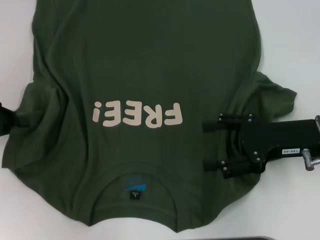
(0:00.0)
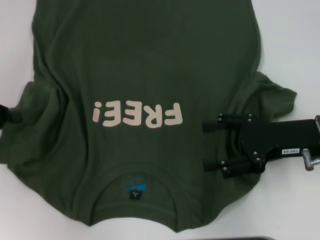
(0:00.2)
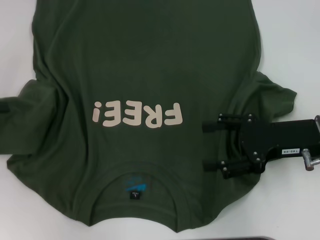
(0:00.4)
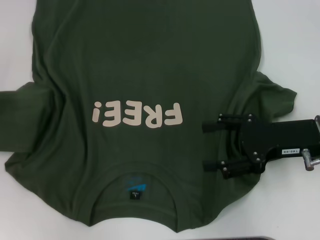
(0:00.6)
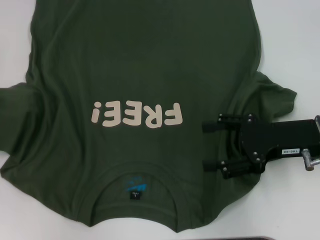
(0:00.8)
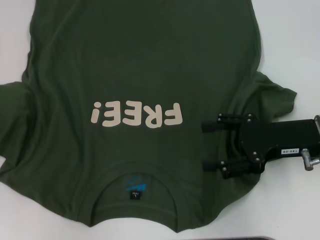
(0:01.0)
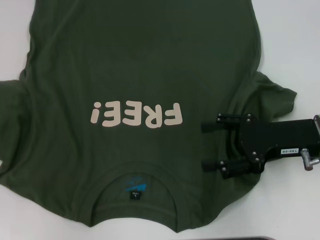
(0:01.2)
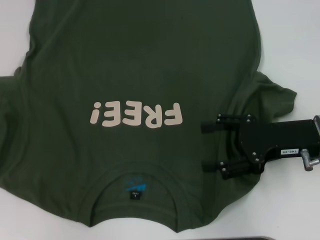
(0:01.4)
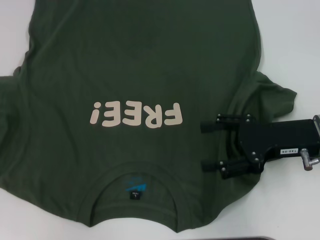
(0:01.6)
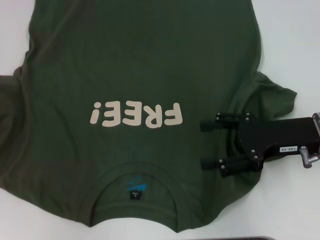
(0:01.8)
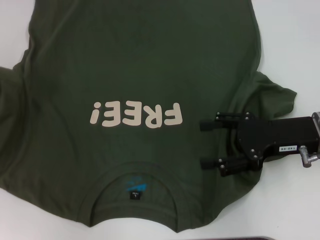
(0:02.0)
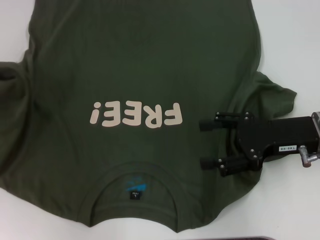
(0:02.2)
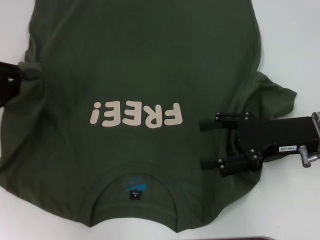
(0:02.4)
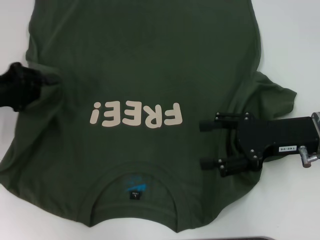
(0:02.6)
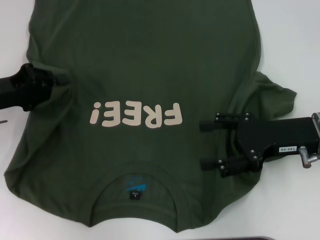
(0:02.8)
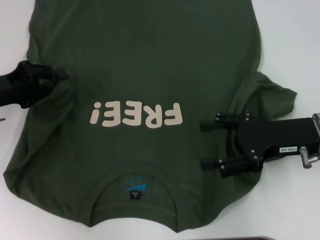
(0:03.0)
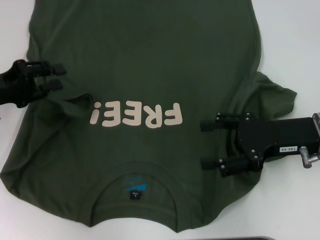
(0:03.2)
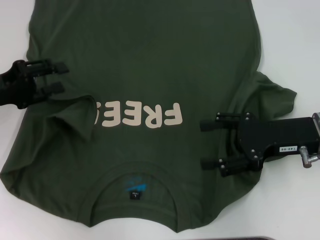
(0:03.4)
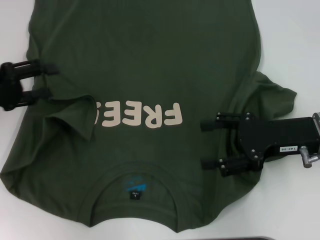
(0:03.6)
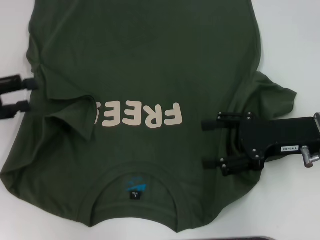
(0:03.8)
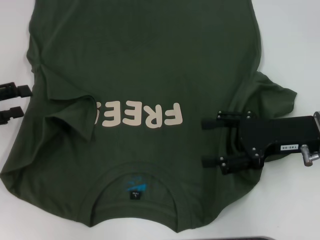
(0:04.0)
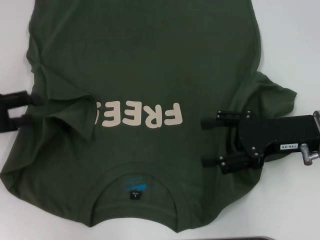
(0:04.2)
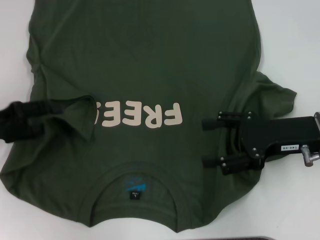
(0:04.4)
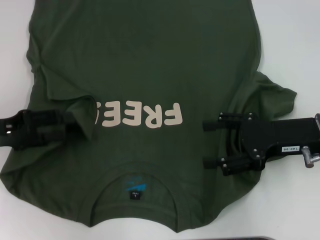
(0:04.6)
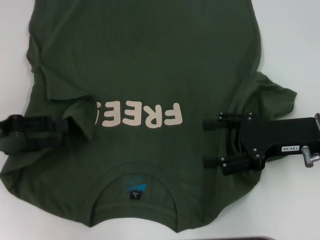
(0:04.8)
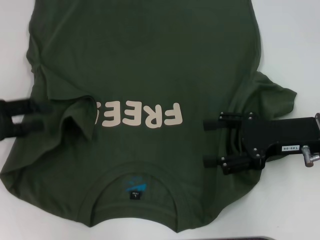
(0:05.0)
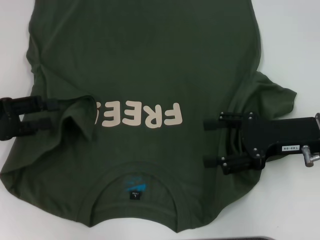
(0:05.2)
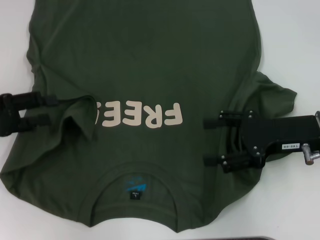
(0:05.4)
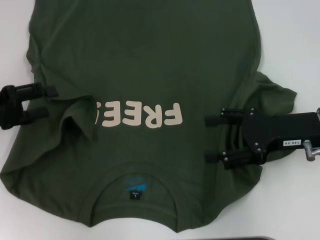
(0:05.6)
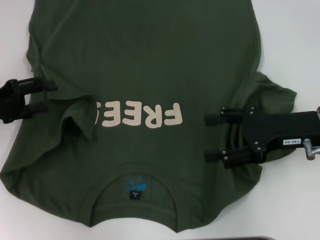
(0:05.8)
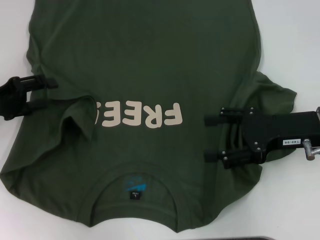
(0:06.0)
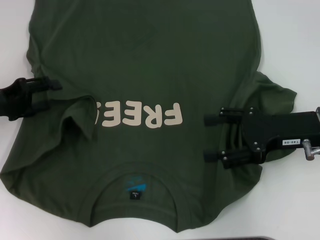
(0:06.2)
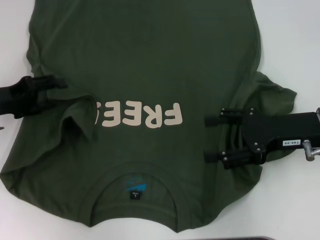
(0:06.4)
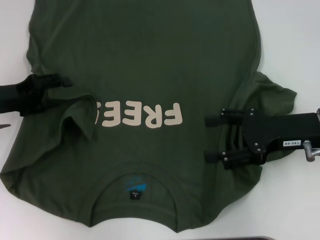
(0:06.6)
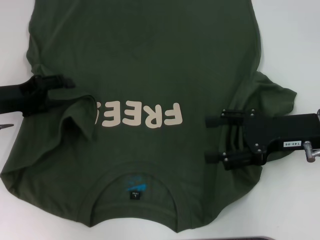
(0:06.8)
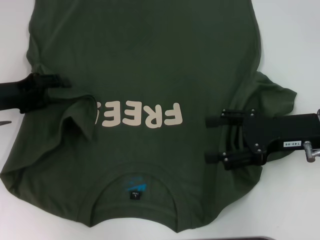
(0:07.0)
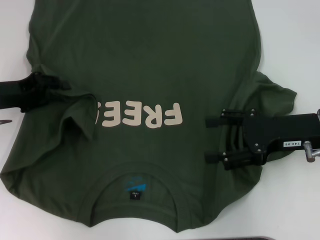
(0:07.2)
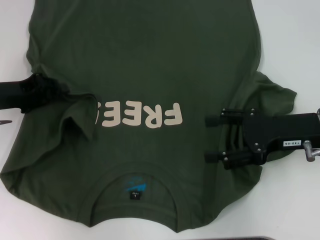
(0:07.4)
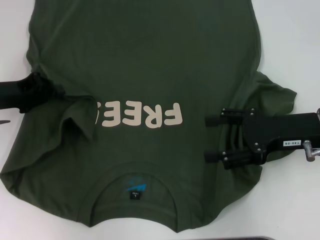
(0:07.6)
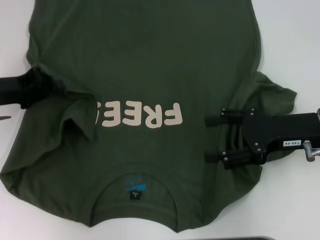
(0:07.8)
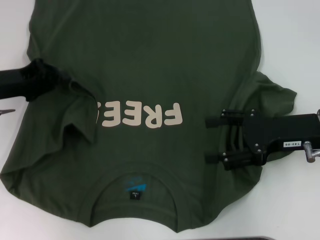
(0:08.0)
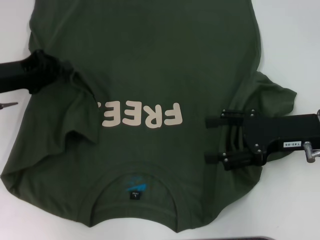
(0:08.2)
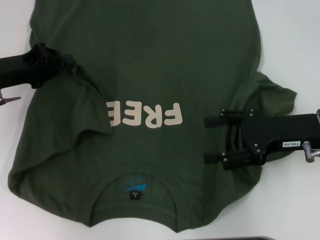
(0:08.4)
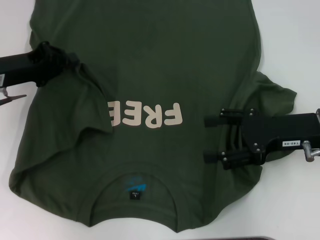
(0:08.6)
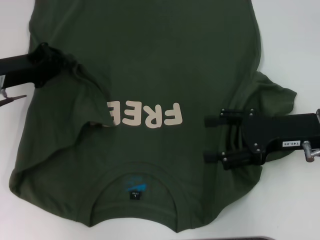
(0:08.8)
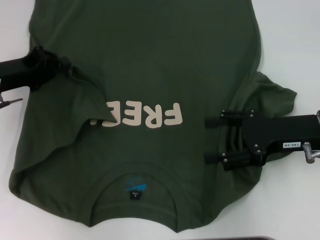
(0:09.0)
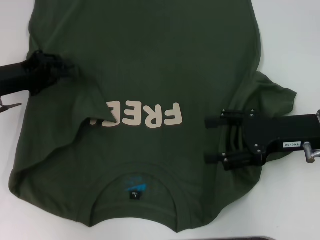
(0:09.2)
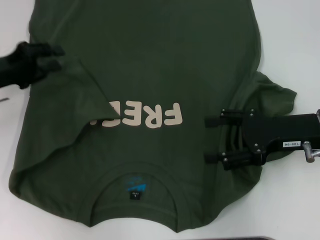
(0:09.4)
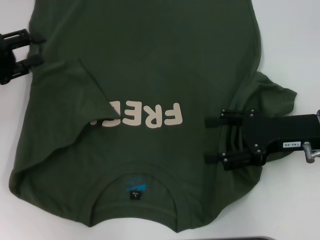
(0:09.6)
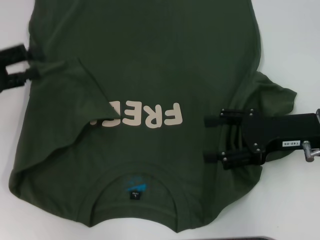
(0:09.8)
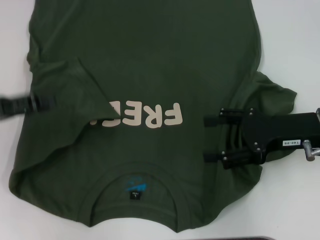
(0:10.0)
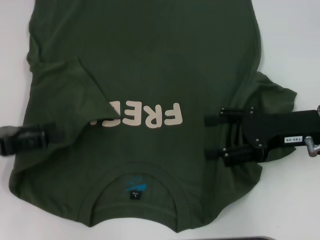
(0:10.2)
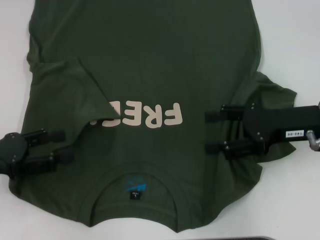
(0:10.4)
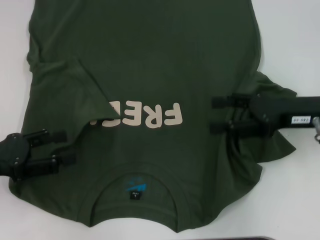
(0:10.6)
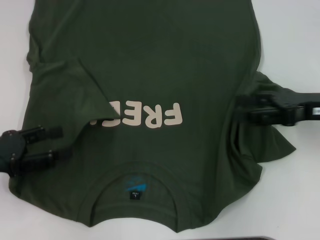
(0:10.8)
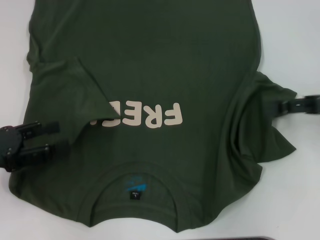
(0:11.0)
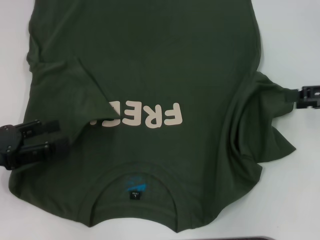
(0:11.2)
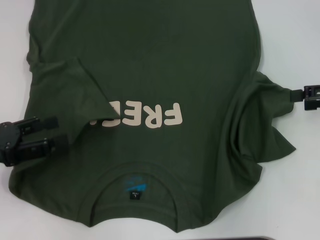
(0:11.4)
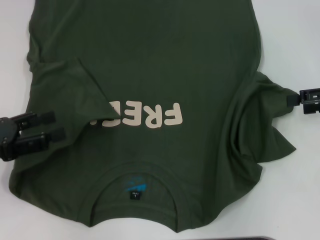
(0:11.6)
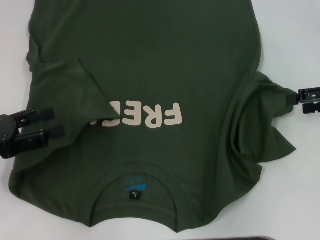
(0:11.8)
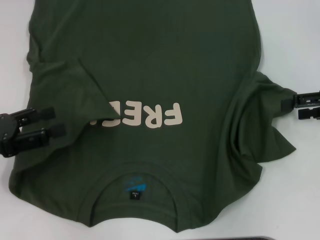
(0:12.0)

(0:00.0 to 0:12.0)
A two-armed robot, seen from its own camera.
Step, 0:00.0 - 0:05.2: Fold the bottom left sleeve with your left hand.
0:00.0 - 0:01.6: The left gripper moves to the left, about 5 cm.
0:01.6 - 0:03.0: The left gripper shifts approximately 10 cm to the right.
0:03.0 - 0:04.4: The left gripper opens its fingers.
0:04.4 - 0:06.0: The grippers stay close to where they were, moving slightly.
0:06.0 - 0:07.6: The left gripper closes.
0:07.6 - 0:09.0: The grippers move only a little.
0:09.0 - 0:10.4: The left gripper heads backward, covering roughly 10 cm, and opens.
0:10.4 - 0:12.0: The right gripper goes about 10 cm to the right.

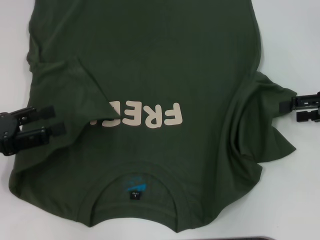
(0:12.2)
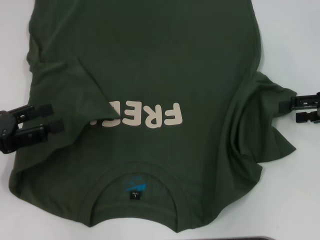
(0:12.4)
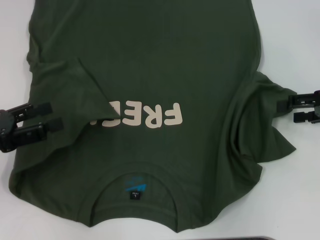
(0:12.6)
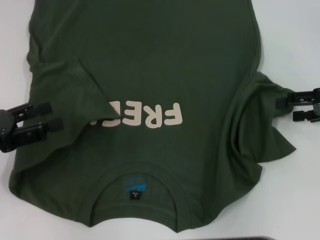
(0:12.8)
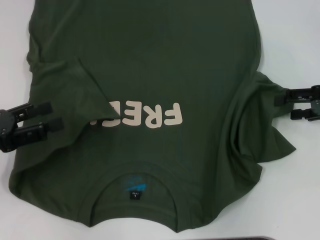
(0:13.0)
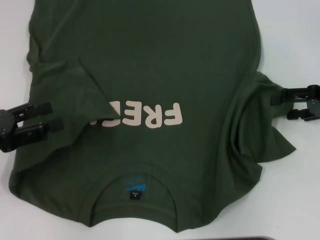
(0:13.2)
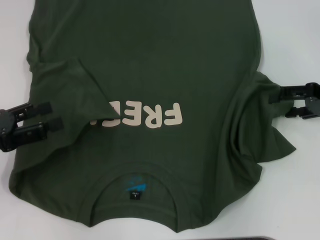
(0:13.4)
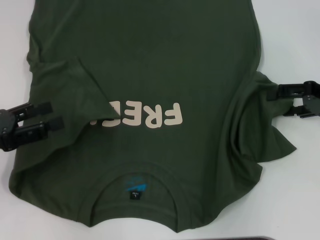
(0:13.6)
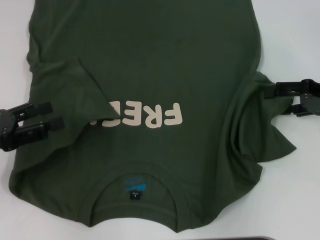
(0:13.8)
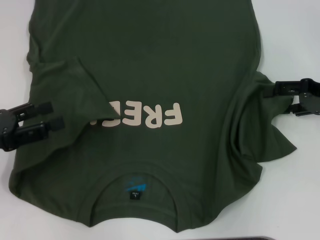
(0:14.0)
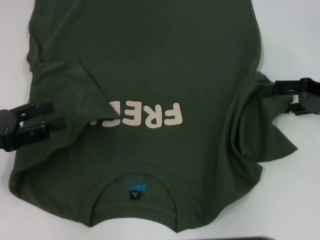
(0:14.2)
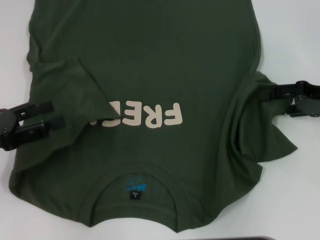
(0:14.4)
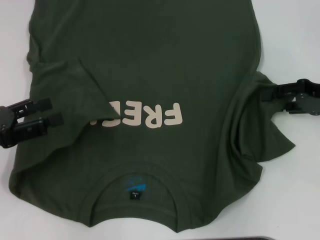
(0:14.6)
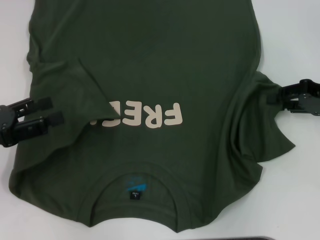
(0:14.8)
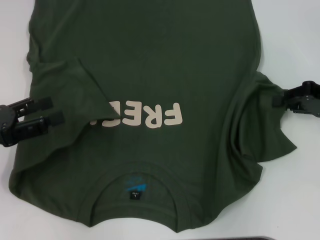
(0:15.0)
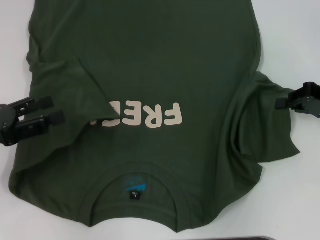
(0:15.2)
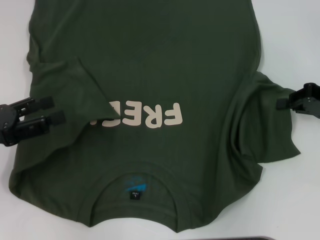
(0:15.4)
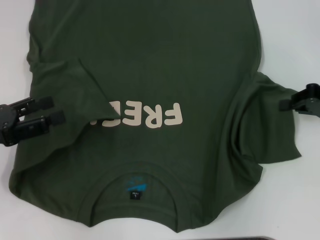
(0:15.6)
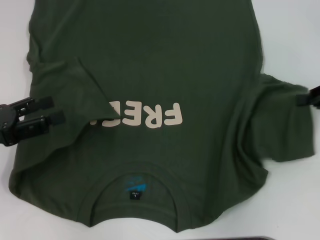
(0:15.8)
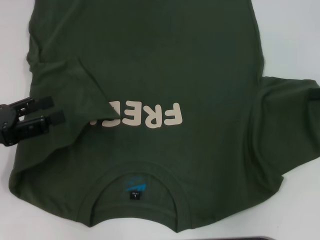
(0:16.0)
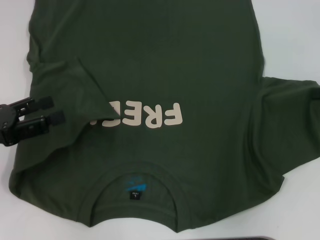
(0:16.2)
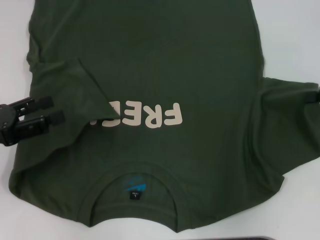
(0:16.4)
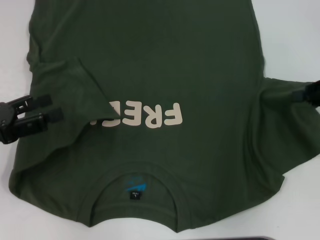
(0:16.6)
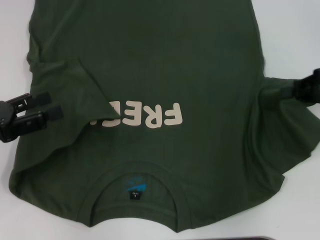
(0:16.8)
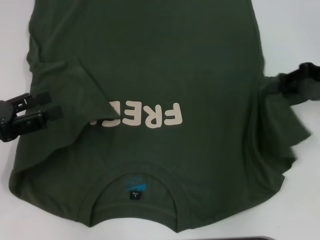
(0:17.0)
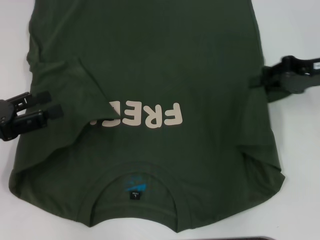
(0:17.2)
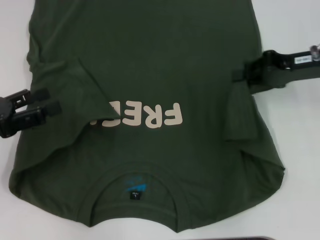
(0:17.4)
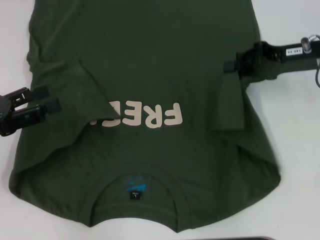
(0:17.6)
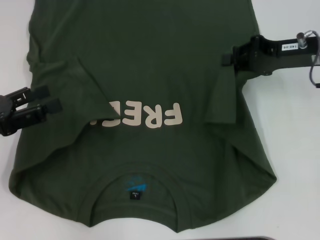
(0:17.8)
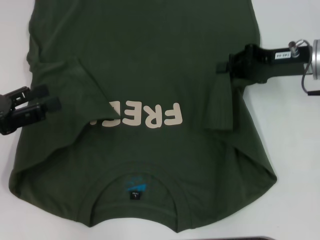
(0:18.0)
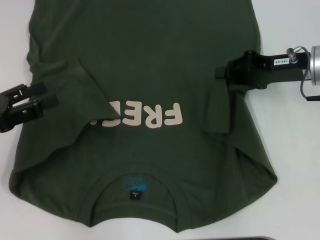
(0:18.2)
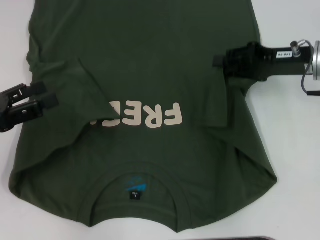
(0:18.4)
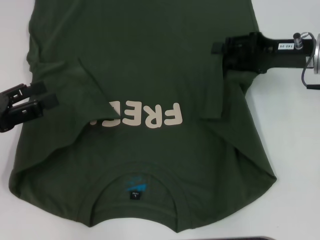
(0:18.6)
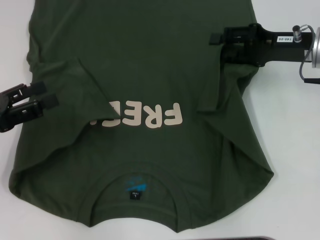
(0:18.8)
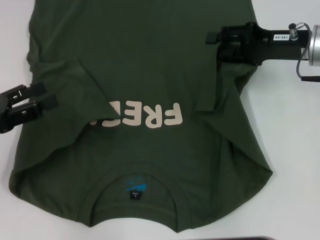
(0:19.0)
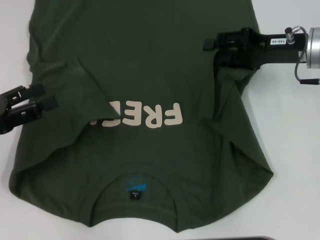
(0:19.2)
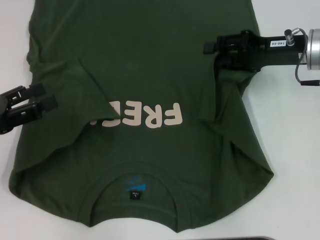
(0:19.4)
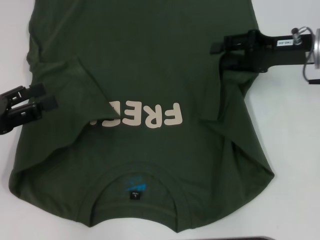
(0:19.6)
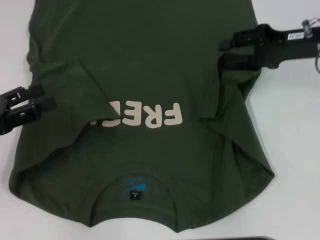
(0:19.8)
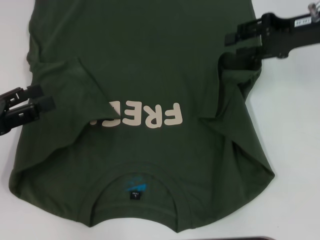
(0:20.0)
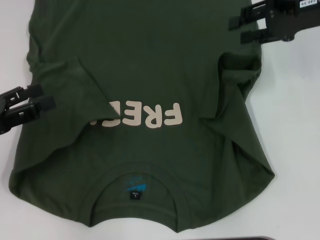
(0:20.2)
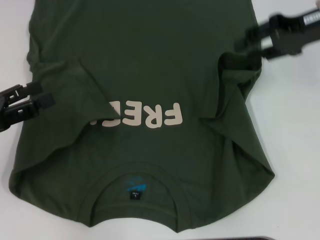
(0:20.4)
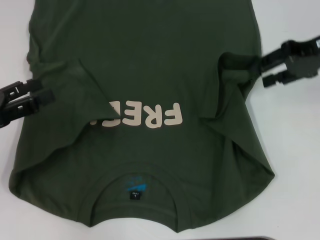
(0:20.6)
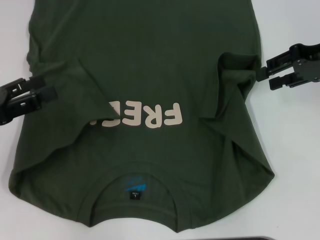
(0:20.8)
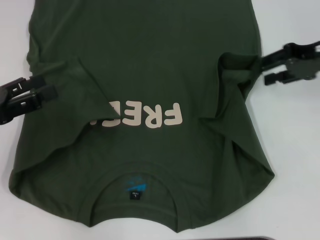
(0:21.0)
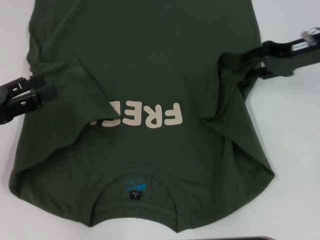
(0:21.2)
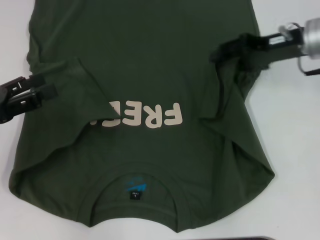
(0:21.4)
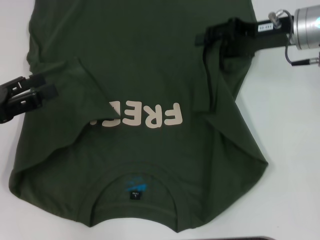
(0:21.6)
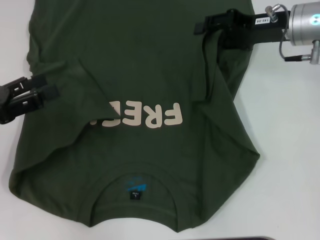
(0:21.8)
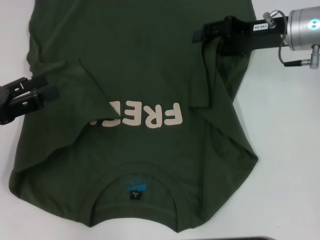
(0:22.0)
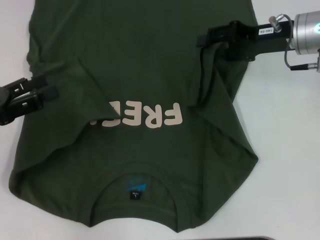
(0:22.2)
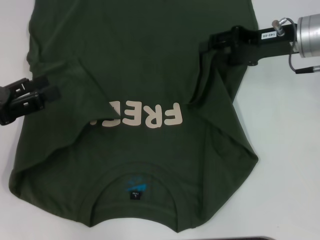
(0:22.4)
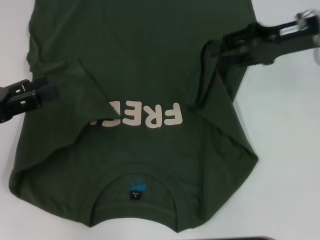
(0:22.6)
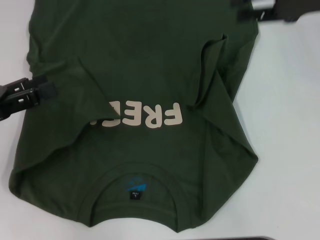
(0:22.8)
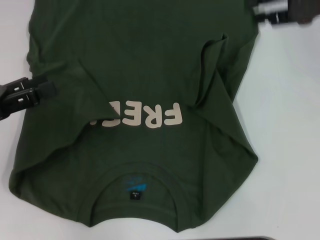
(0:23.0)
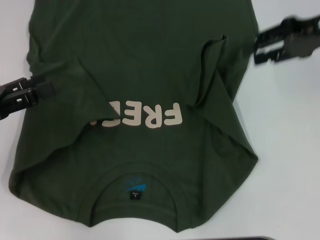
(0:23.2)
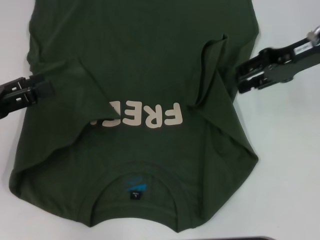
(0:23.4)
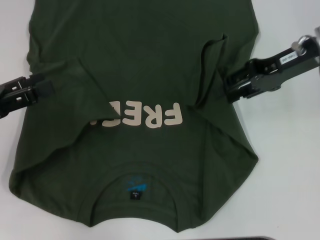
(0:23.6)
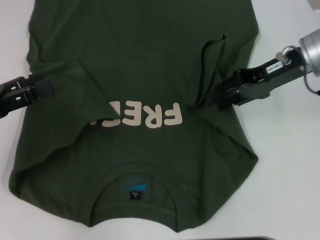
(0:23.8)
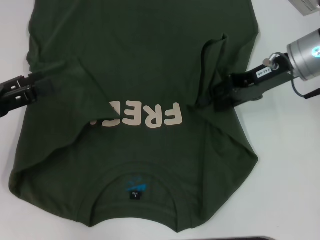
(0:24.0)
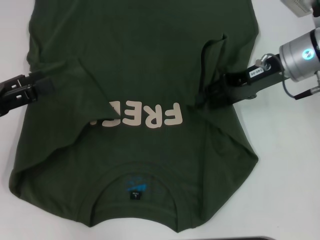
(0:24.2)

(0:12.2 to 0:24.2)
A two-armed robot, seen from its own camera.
Step, 0:12.2 - 0:20.2: Fold the bottom right sleeve with your right hand.
0:12.2 - 0:13.8: The grippers stay close to where they were, moving slightly.
0:13.8 - 0:15.2: The right gripper closes up.
0:15.2 - 0:16.6: There are only small adjustments of the grippers.
0:16.6 - 0:18.2: The right gripper shifts about 10 cm to the left.
0:18.2 - 0:19.8: The right gripper opens its fingers.
0:21.2 - 0:22.6: There are only small adjustments of the grippers.
0:22.6 - 0:24.2: The right gripper changes place by approximately 5 cm.
